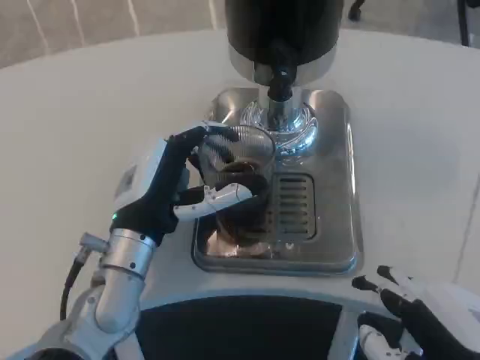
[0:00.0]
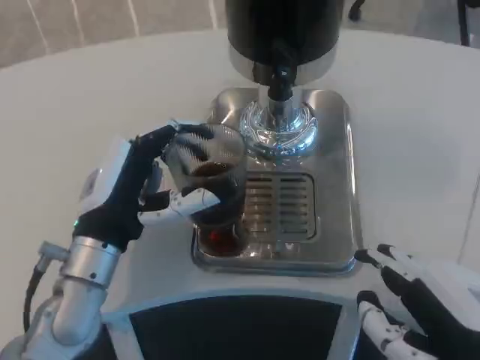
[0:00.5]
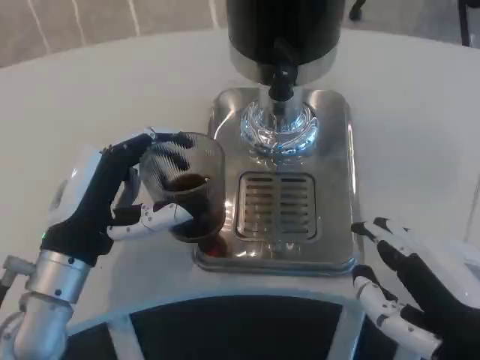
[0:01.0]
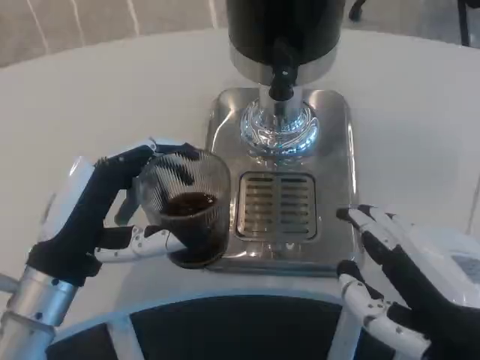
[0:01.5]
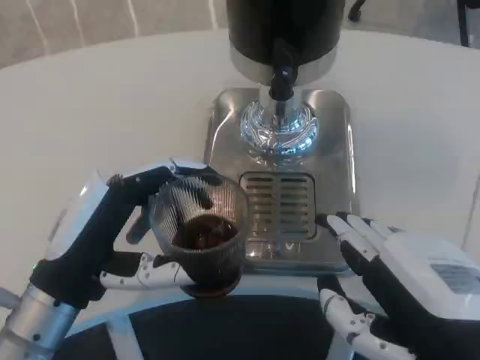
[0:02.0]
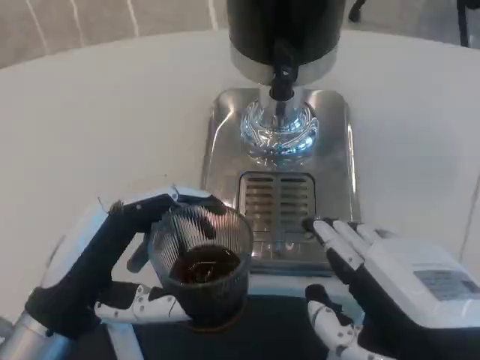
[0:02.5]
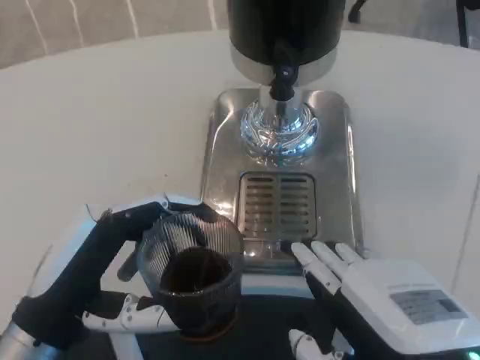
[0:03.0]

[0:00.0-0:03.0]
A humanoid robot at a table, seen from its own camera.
Task of the whole recording: Grasp the cup under the faucet to collect the drink, then remove the cup.
0:00.0 to 0:01.5: The left hand travels to the left and backward by roughly 10 cm.

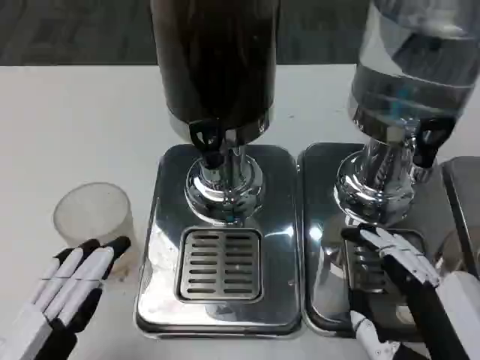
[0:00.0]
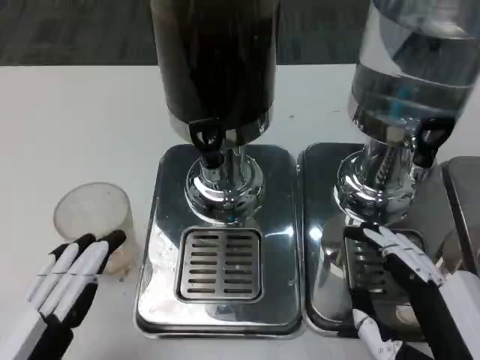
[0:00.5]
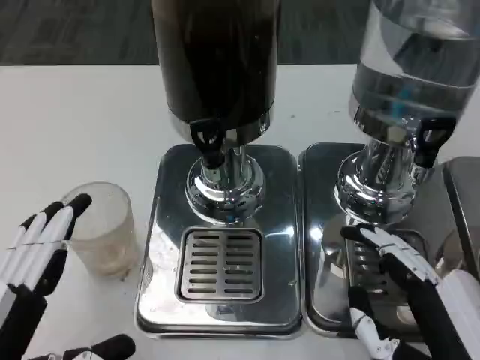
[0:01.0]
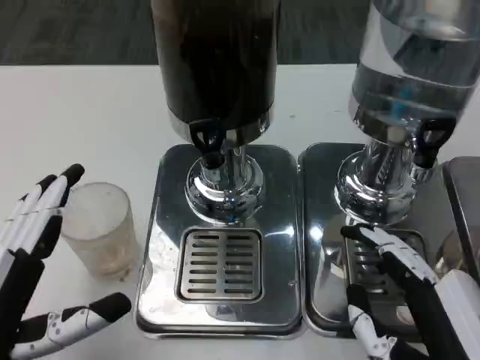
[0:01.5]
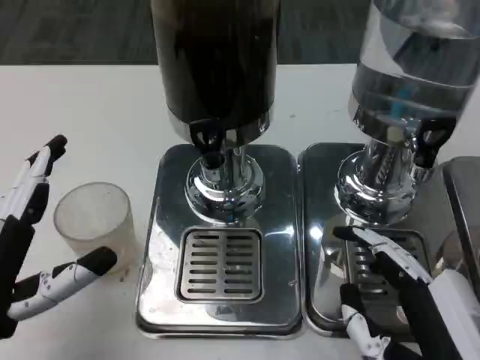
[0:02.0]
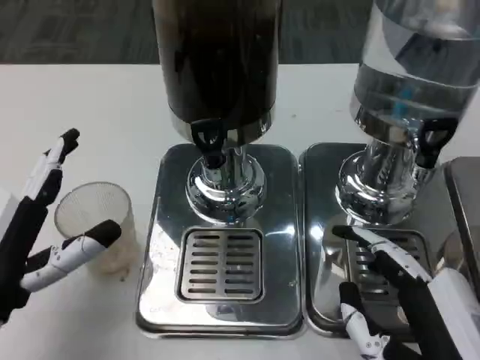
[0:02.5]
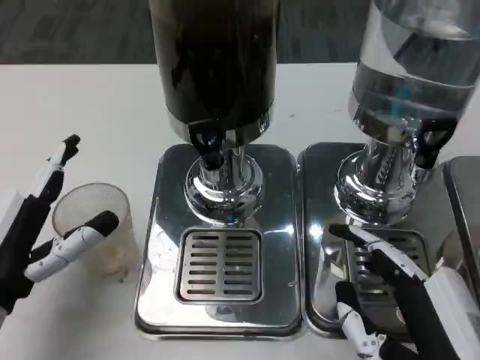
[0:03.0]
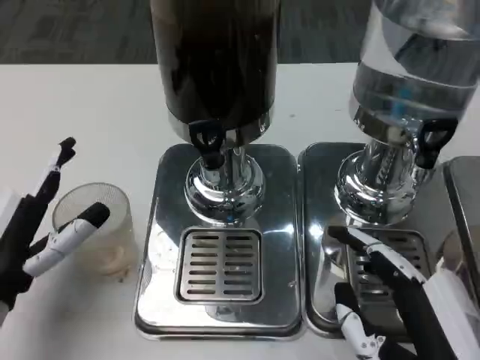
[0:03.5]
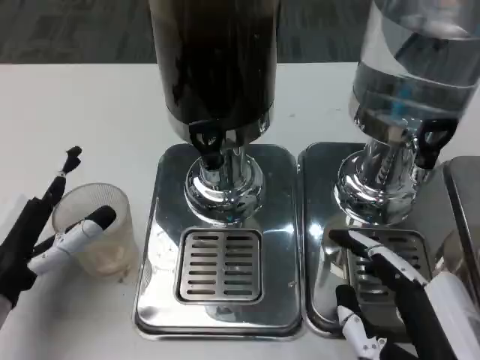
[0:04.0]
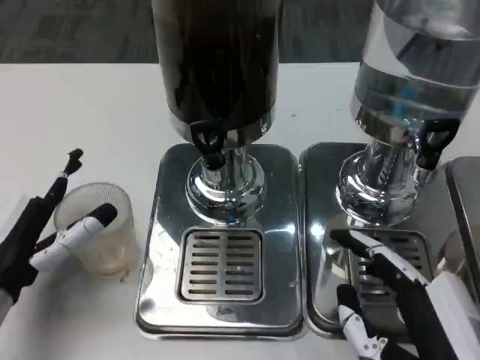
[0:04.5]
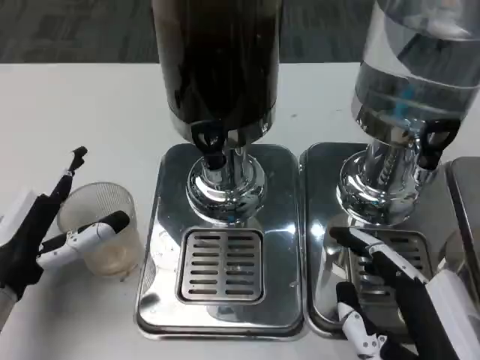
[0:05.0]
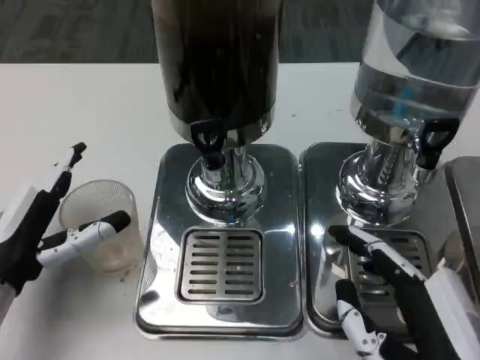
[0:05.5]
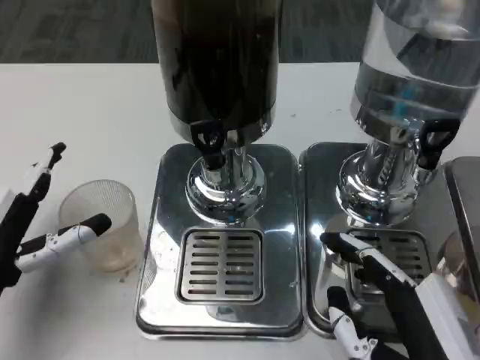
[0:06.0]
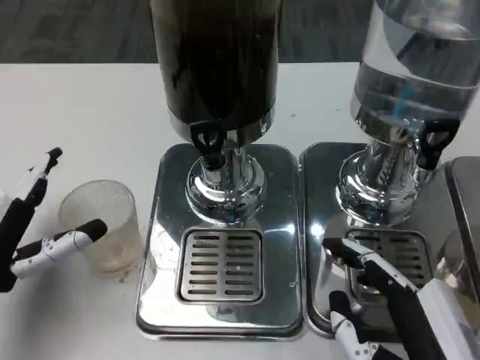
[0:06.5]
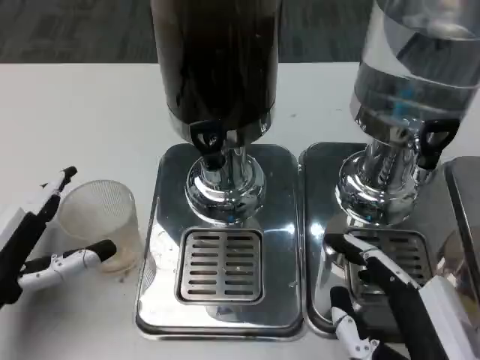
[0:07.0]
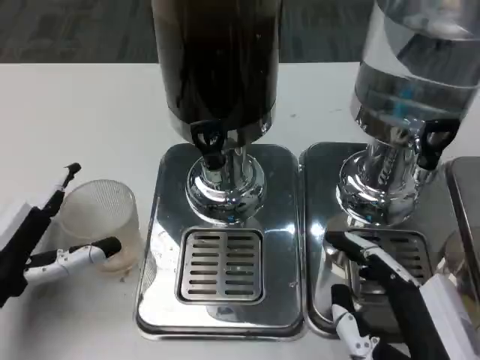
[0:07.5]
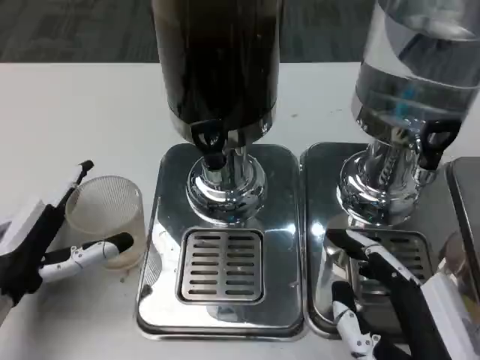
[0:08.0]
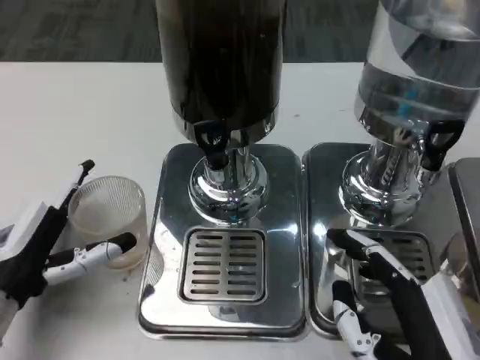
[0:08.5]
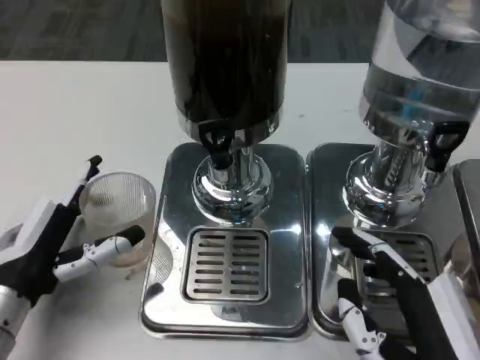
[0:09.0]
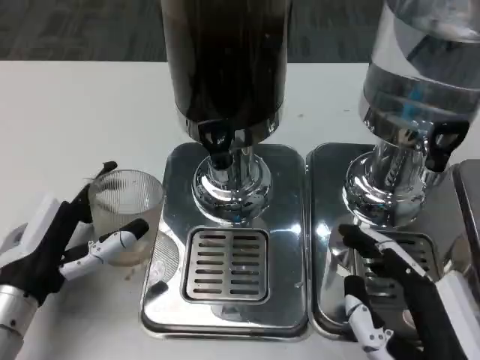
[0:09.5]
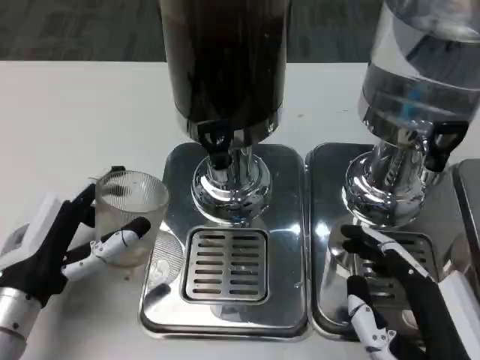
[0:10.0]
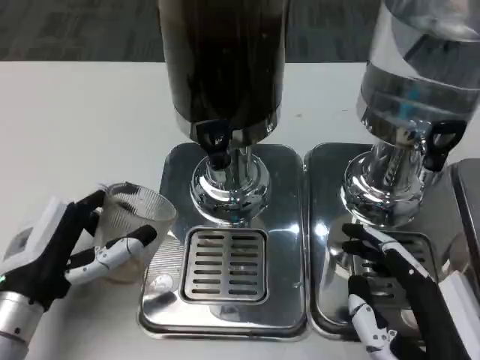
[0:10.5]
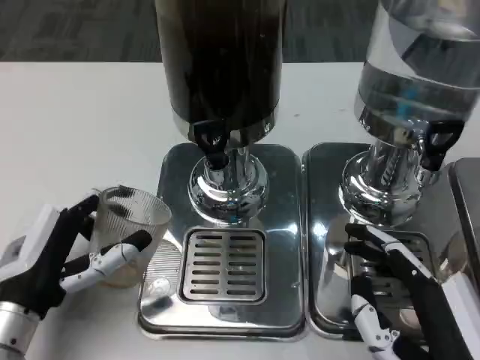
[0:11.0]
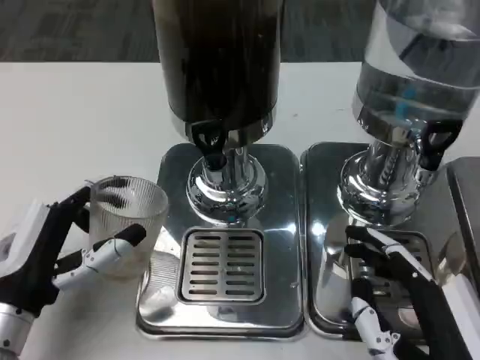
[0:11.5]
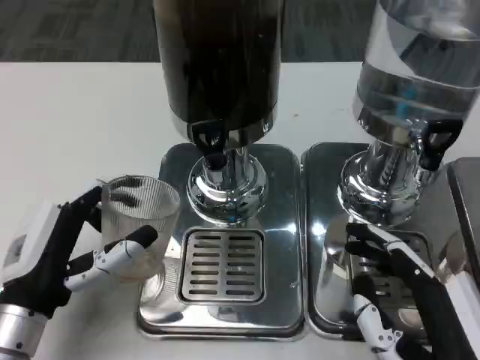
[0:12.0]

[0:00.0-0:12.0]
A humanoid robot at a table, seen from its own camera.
Task of the whole recording: Grasp the cup under the faucet to collect the drink, then remove the cup.
0:00.0 to 0:02.0: The left hand travels forward by about 5 cm.
0:02.0 to 0:04.0: The left hand goes some 5 cm forward.
0:04.0 to 0:08.0: There are only small adjustments of the hands.

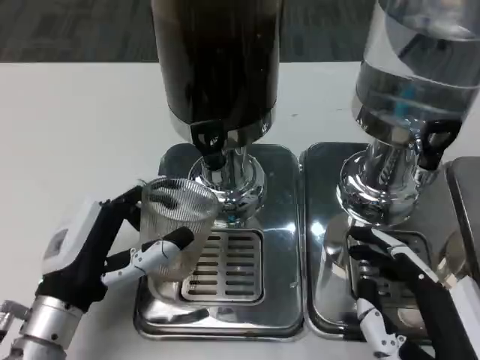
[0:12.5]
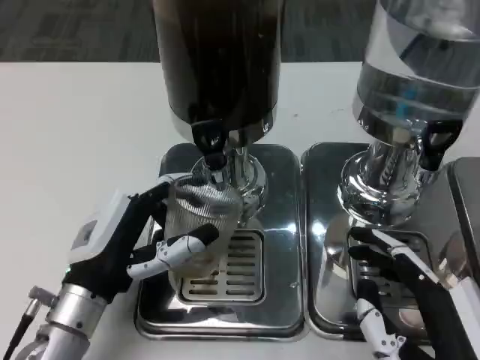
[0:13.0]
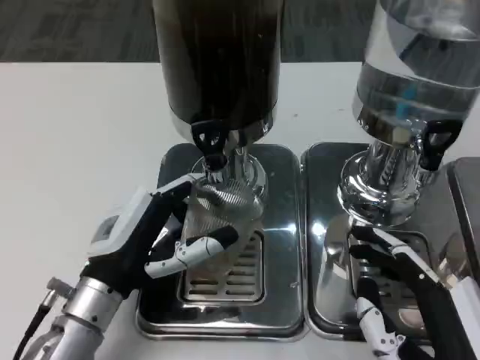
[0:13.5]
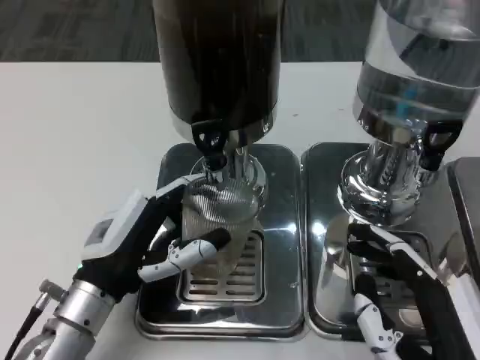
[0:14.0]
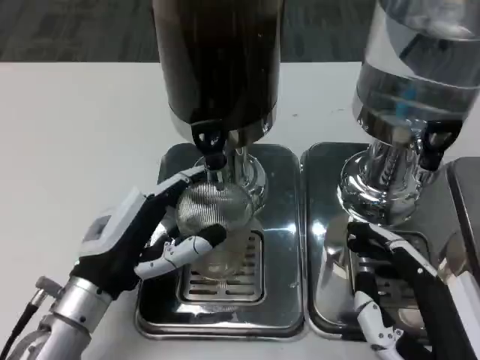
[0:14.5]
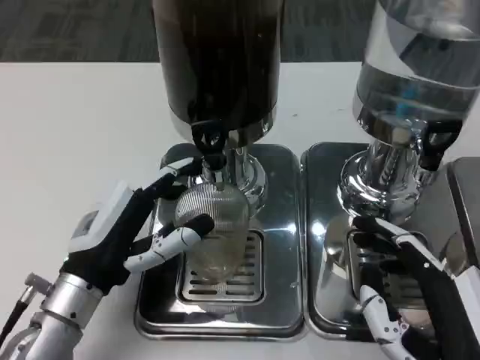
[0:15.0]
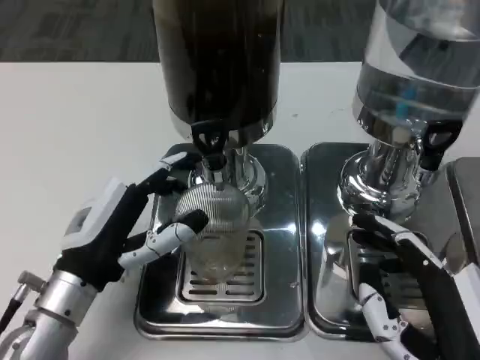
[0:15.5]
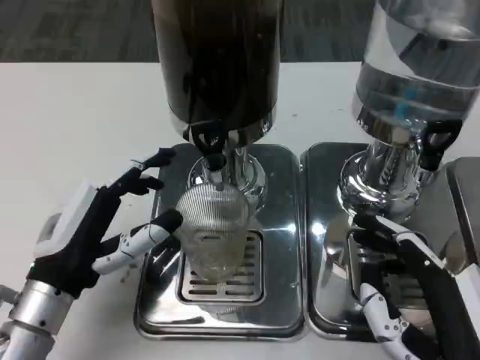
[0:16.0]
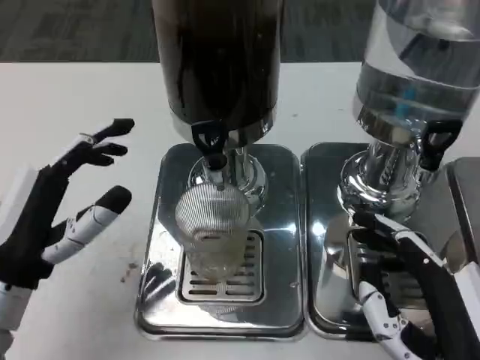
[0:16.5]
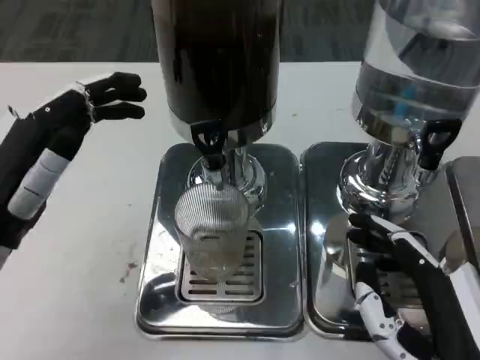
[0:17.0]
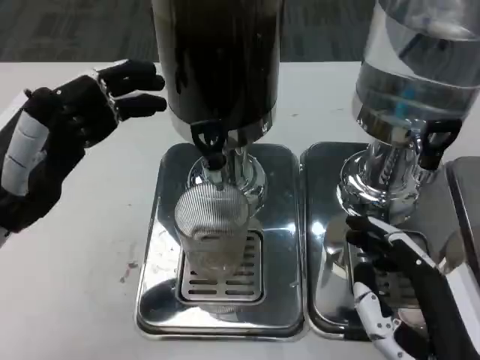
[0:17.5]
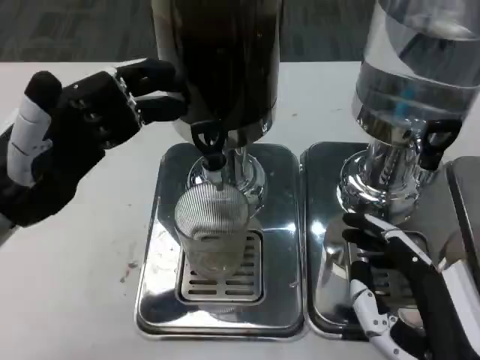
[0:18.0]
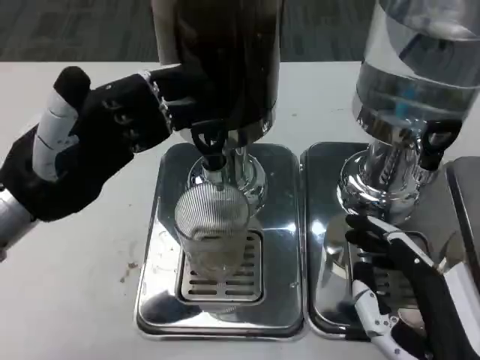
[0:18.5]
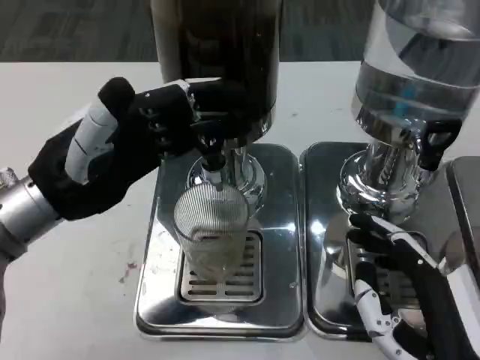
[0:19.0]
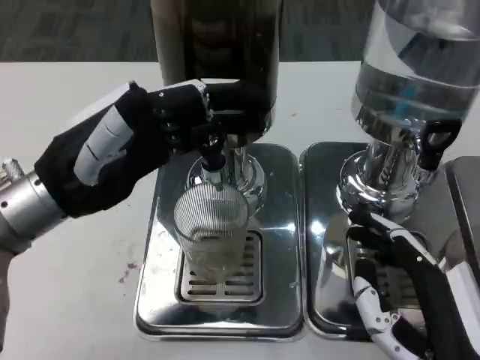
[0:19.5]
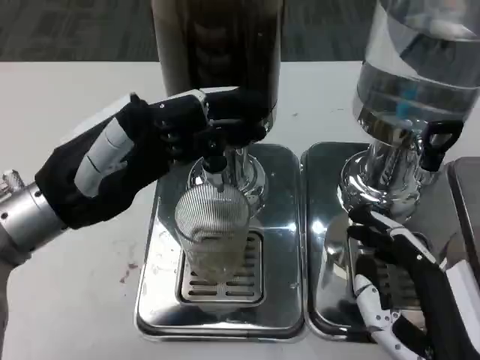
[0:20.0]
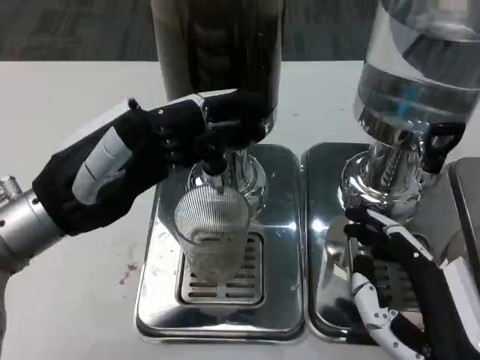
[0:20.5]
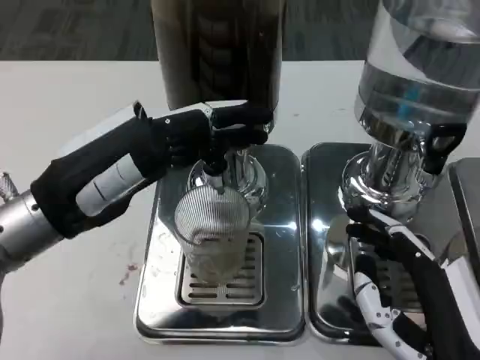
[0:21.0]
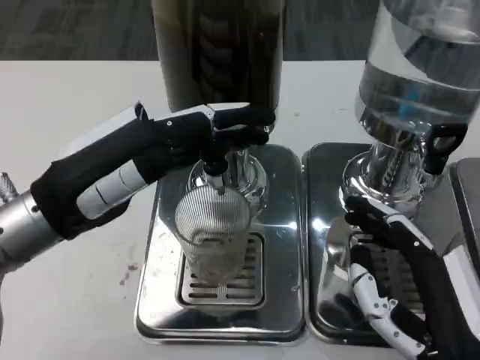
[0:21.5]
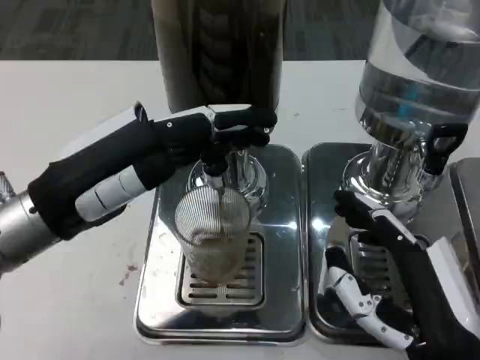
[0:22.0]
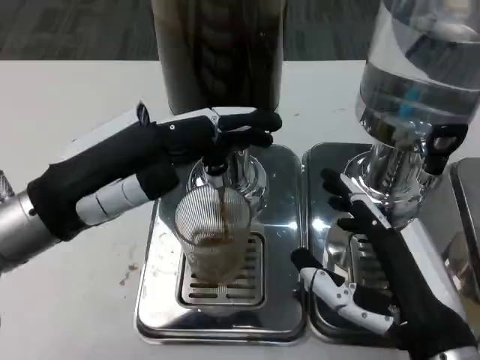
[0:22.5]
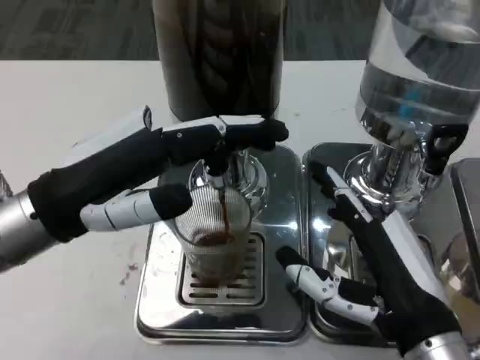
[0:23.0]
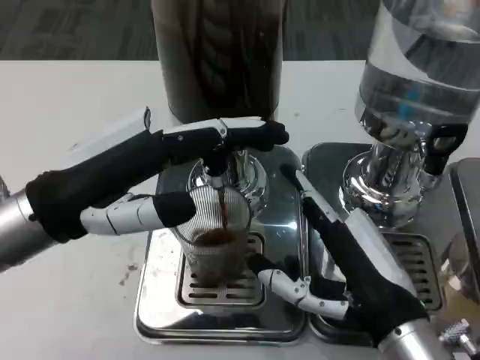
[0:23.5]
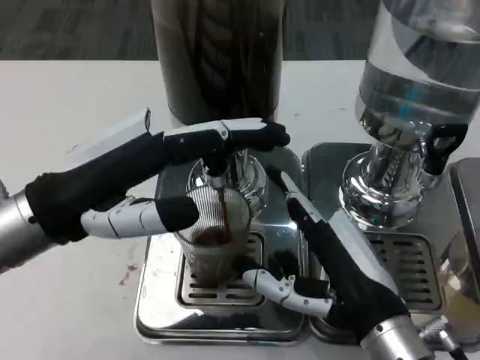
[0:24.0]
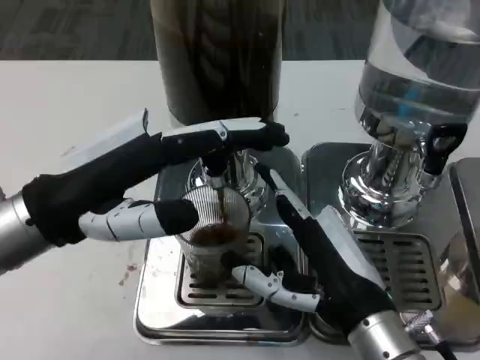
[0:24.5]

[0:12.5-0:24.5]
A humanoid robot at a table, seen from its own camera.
Task of the whole recording: Grasp the cup under the faucet to collect the drink, then remove the cup.
0:12.5 to 0:14.5: The hands make only small movements.
0:14.5 to 0:16.5: The left hand ends up some 5 cm from where it was.
0:16.5 to 0:18.5: The left hand shifts approximately 10 cm upward and forward.
0:22.5 to 0:24.5: The right hand ends up roughly 5 cm from where it was.
